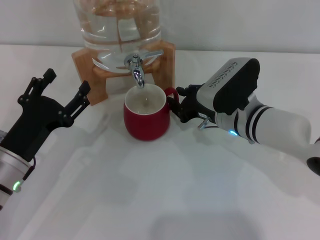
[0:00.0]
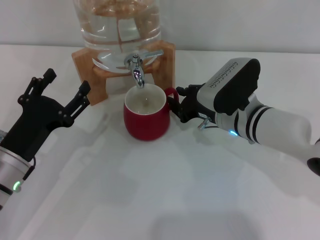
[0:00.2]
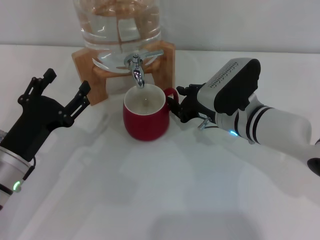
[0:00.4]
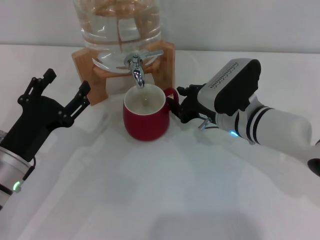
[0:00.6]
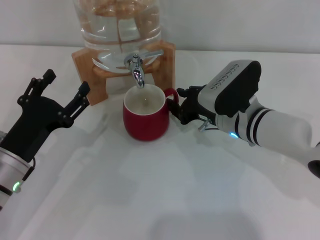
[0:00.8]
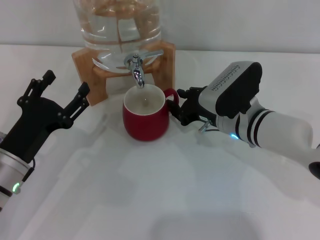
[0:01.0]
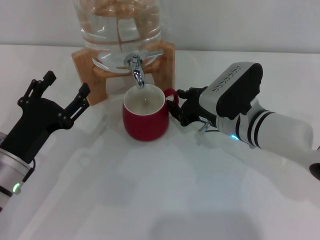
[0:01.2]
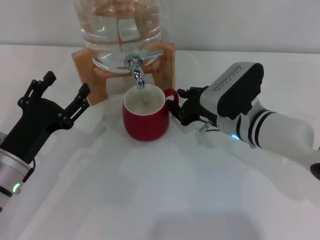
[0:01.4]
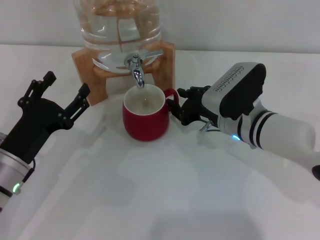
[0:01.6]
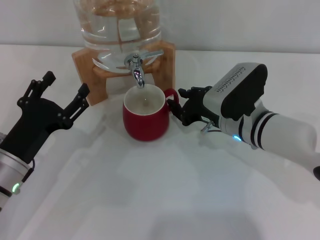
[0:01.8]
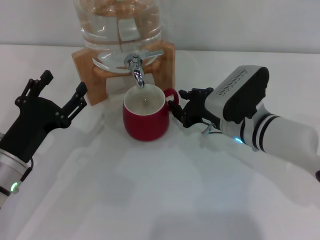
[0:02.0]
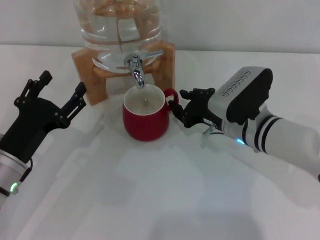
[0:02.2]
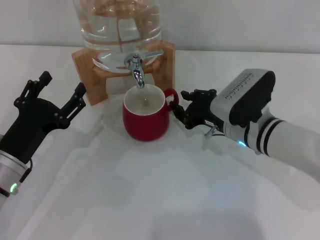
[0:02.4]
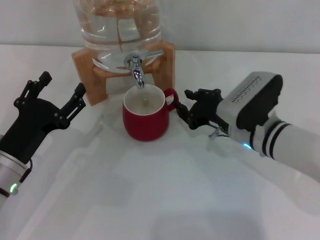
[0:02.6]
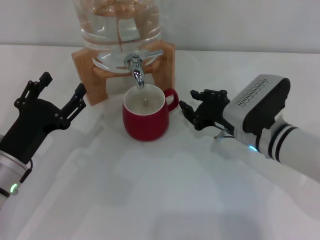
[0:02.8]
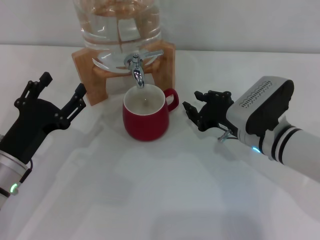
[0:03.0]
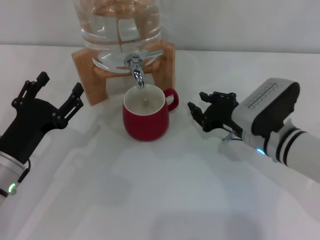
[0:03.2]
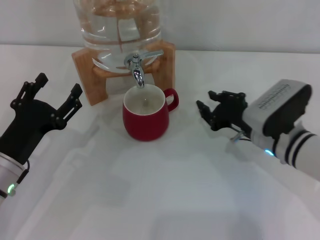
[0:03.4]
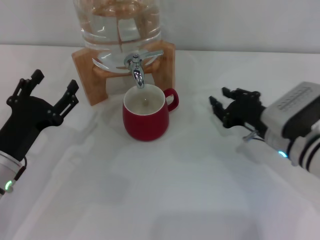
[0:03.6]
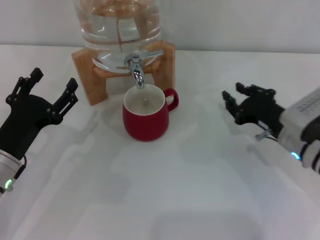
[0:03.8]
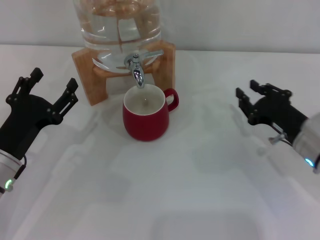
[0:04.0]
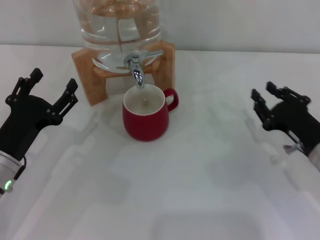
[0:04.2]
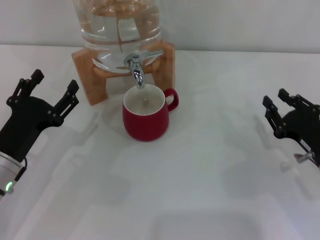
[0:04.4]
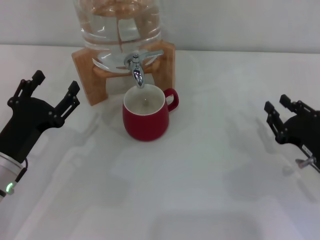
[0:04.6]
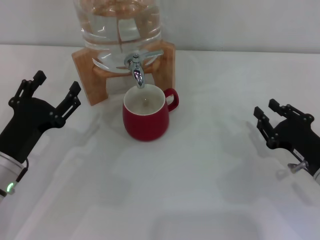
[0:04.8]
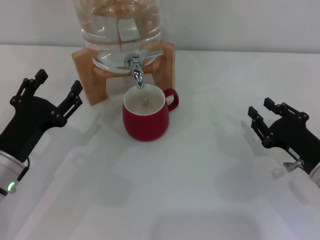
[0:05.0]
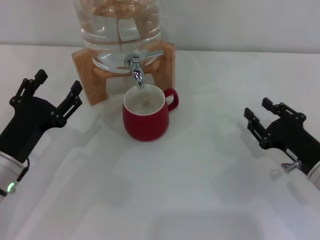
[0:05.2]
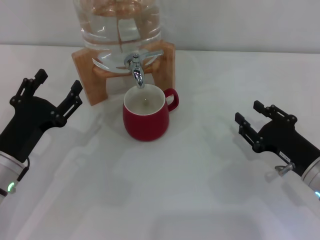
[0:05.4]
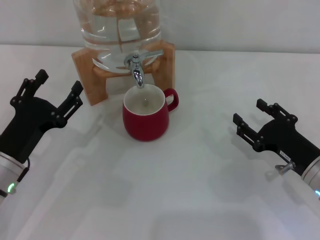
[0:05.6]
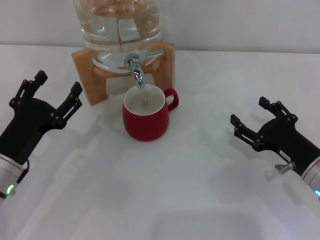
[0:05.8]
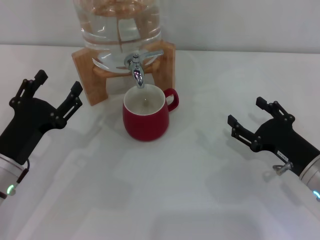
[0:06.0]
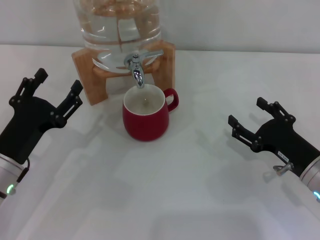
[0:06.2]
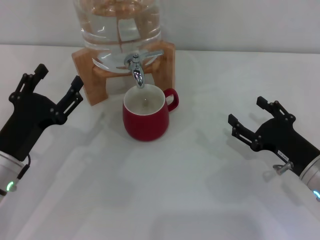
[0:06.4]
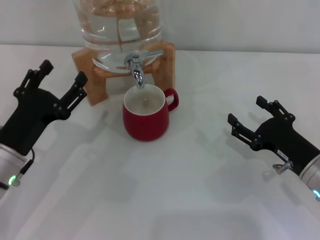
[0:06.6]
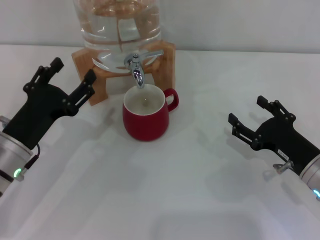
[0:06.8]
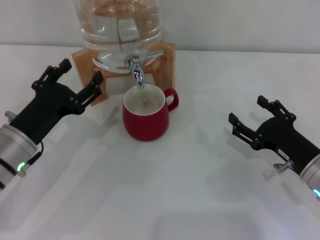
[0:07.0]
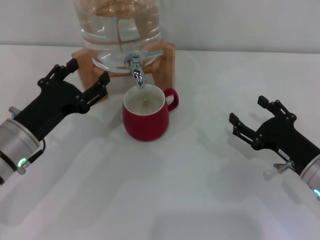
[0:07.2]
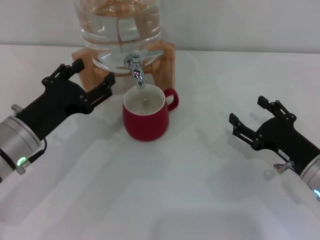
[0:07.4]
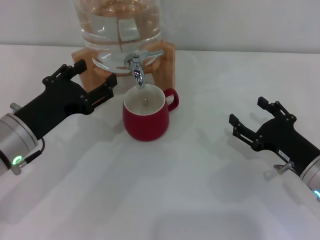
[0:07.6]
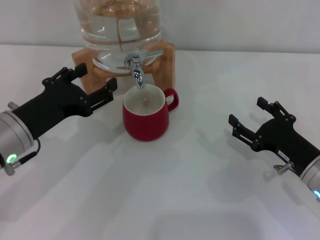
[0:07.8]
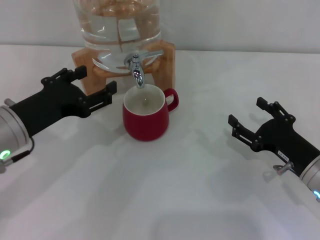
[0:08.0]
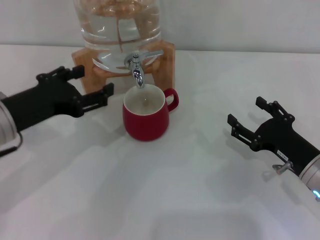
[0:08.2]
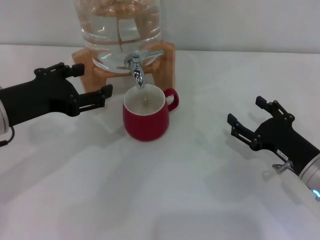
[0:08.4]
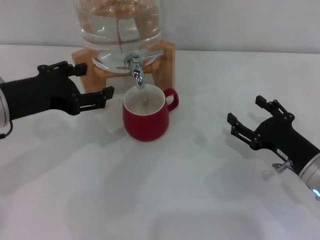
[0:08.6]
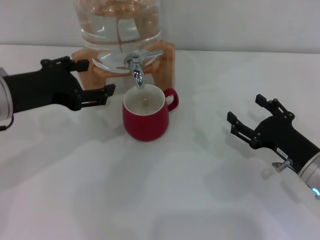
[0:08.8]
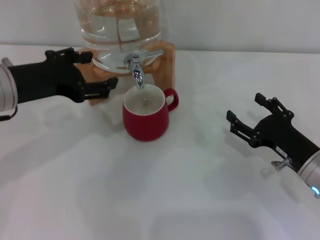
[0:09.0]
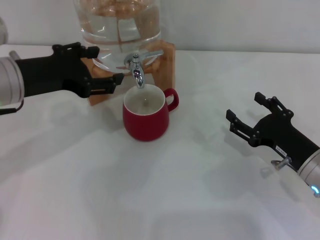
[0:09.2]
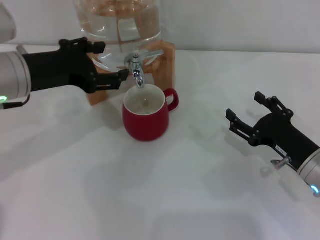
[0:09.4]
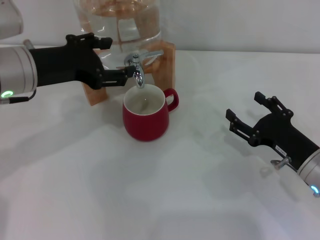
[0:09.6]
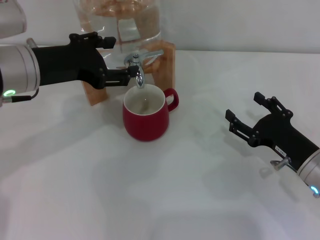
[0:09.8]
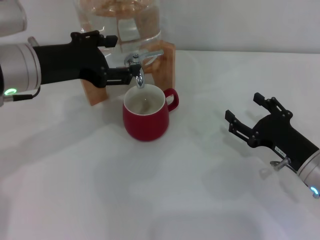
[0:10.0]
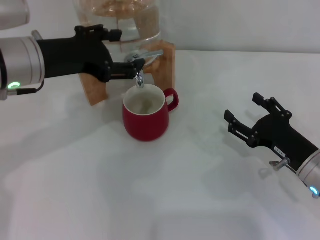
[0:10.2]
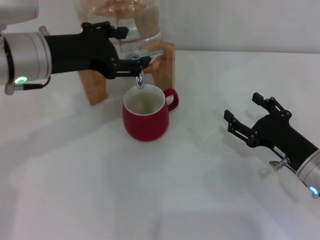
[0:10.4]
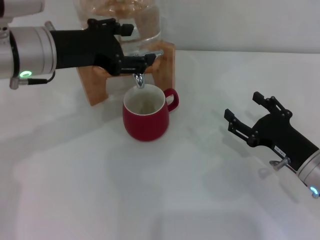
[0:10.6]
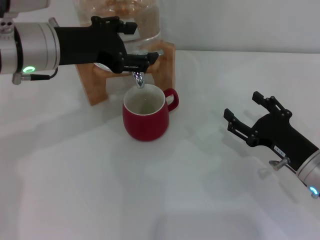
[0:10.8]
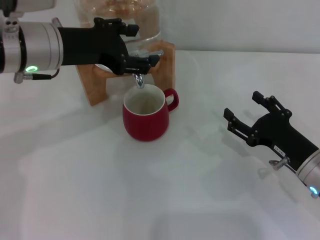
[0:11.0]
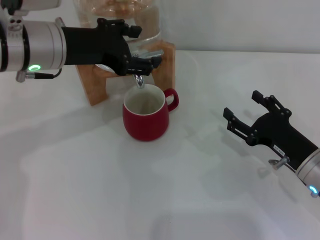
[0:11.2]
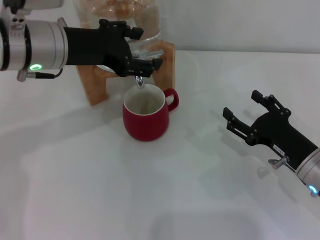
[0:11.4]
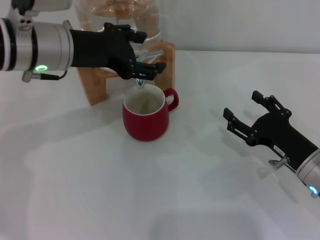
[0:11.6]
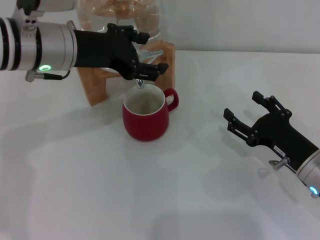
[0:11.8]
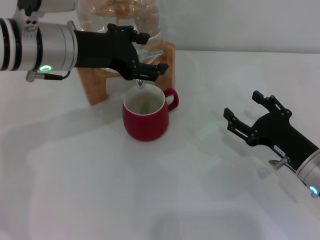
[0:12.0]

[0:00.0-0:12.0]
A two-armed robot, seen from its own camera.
Task of the whole recording: the right gripper pick up the red cup and place it horizontally under the faucet, the left gripper turn on the faucet to fill the cup, and then turn off the faucet.
Step, 0:00.0 to 0:03.0: Move the cup beneath the water dispenser nozzle with the right gripper.
0:00.0 to 0:01.6: The two grippers keep their place.
0:01.6 to 0:03.0: The grippers make only small movements.
0:03.0 to 0:04.4: The right gripper goes approximately 15 cm to the right and backward.
0:04.4 to 0:06.0: The right gripper opens its fingers.
0:06.0 to 0:07.6: The left gripper moves upward, approximately 5 cm.
0:07.6 to 0:09.0: The left gripper heads upward, covering roughly 10 cm.
0:09.0 to 0:10.4: The left gripper ends up about 5 cm from where it was.
0:10.4 to 0:12.0: The grippers stay close to where they were, moving slightly.

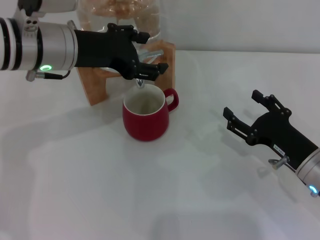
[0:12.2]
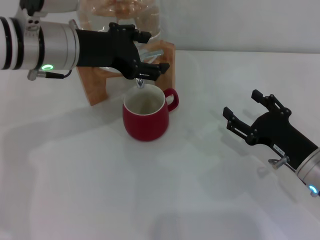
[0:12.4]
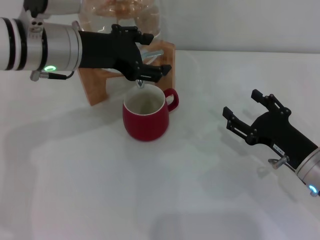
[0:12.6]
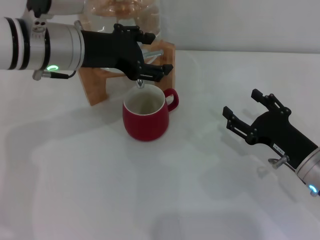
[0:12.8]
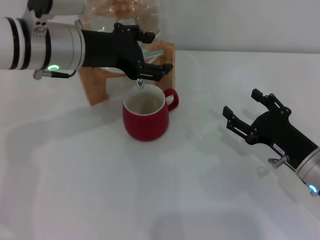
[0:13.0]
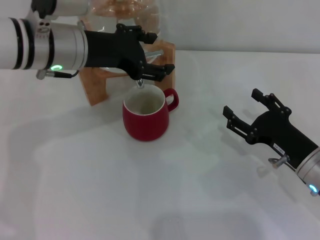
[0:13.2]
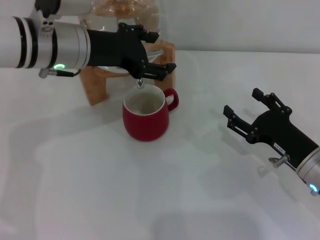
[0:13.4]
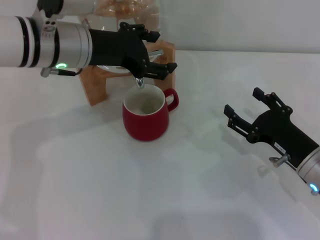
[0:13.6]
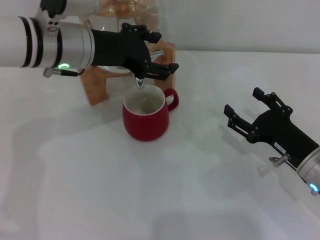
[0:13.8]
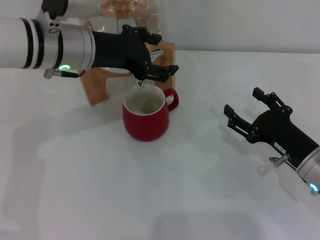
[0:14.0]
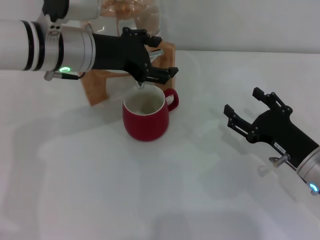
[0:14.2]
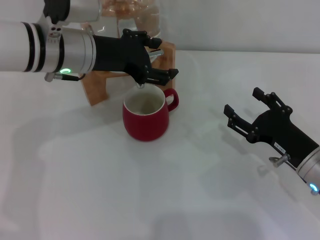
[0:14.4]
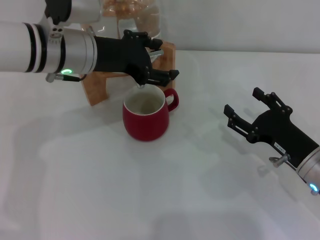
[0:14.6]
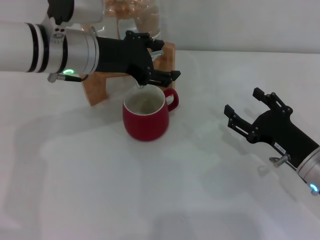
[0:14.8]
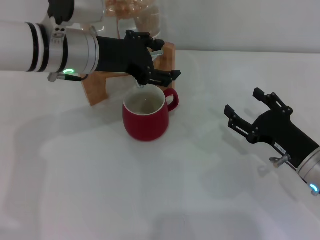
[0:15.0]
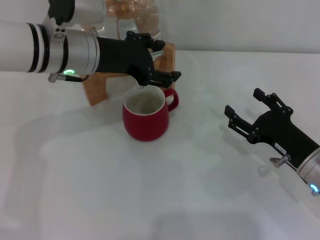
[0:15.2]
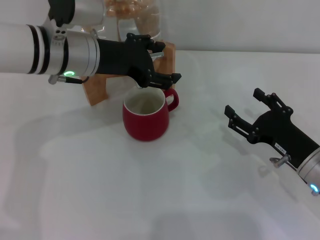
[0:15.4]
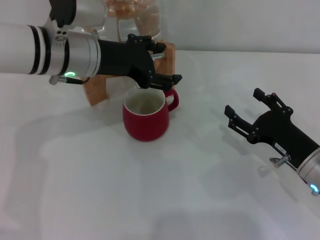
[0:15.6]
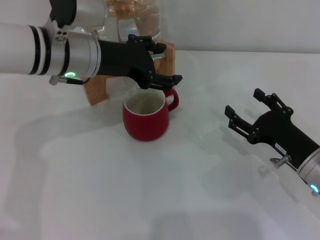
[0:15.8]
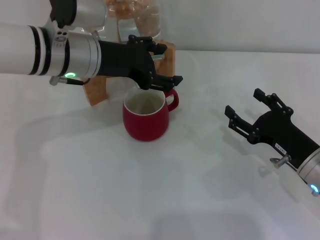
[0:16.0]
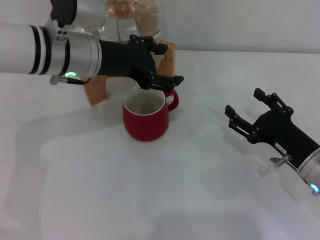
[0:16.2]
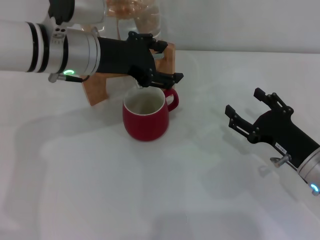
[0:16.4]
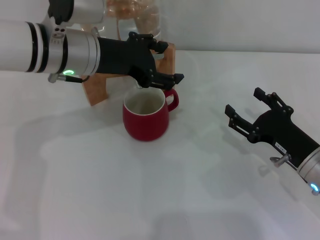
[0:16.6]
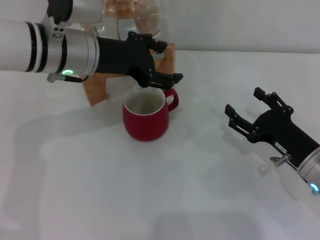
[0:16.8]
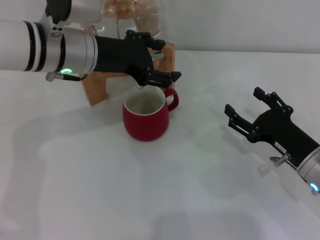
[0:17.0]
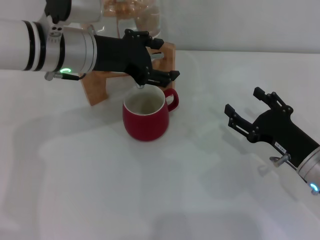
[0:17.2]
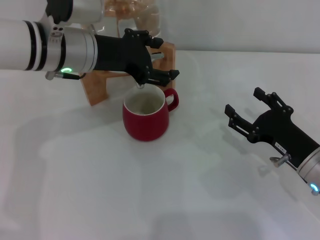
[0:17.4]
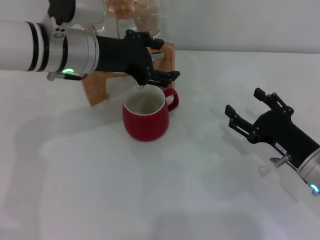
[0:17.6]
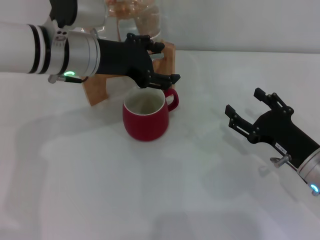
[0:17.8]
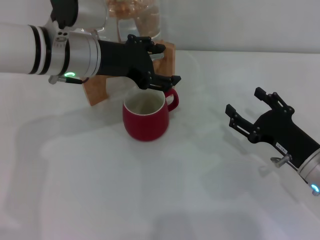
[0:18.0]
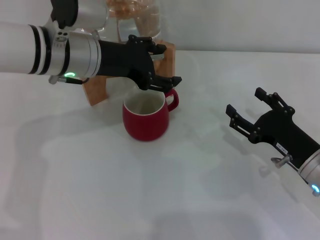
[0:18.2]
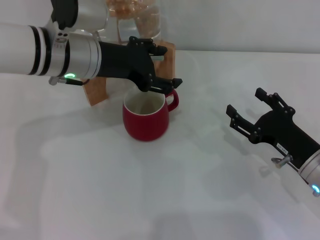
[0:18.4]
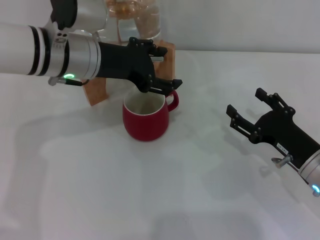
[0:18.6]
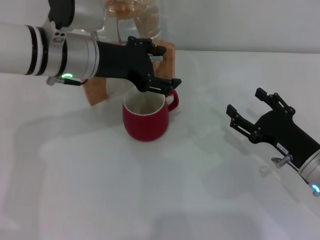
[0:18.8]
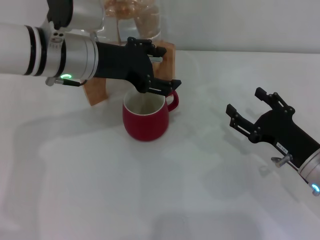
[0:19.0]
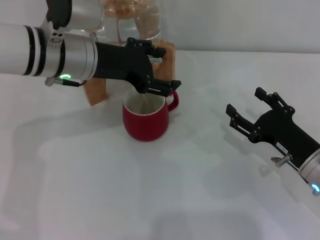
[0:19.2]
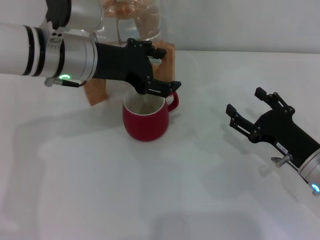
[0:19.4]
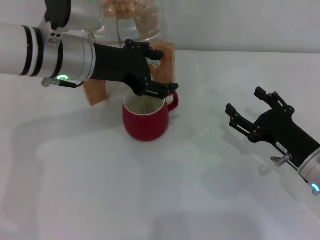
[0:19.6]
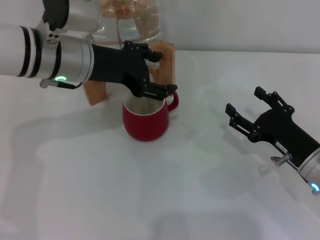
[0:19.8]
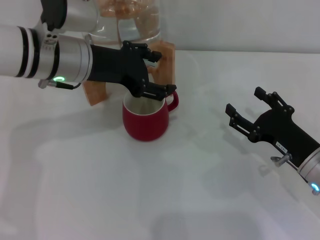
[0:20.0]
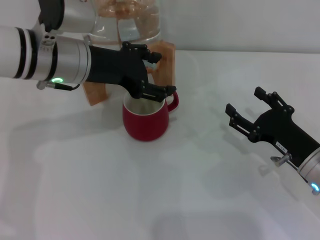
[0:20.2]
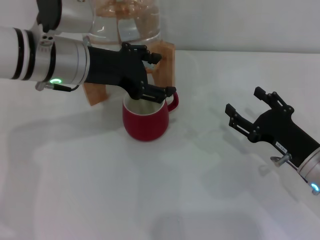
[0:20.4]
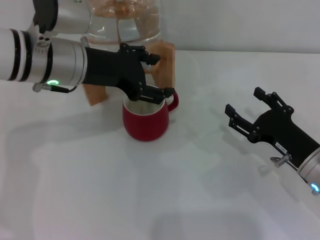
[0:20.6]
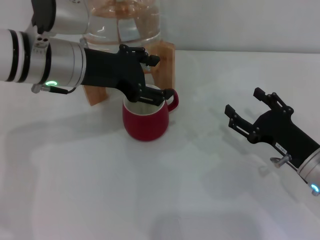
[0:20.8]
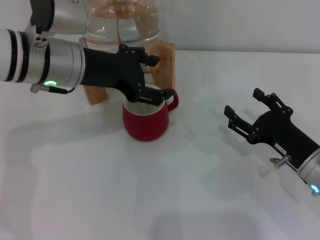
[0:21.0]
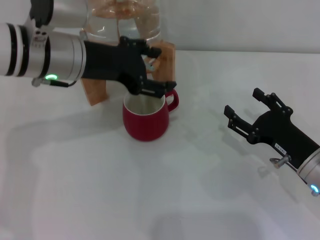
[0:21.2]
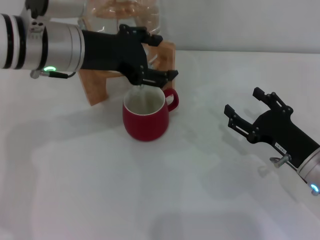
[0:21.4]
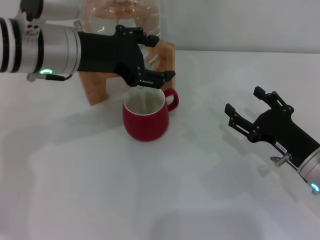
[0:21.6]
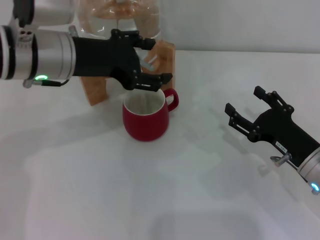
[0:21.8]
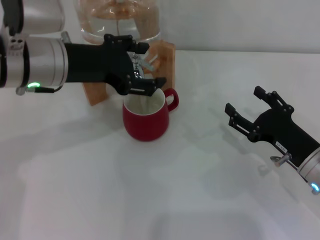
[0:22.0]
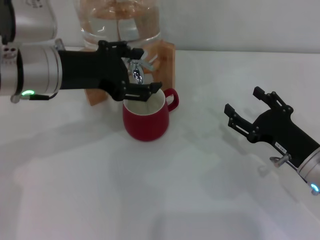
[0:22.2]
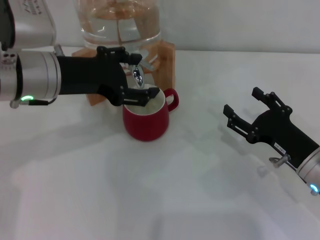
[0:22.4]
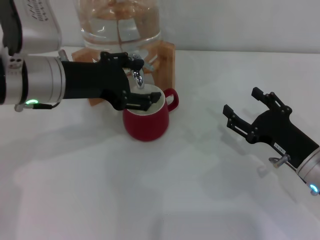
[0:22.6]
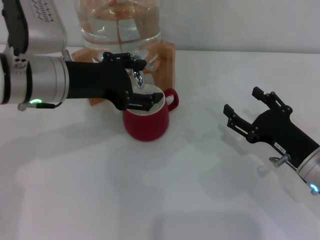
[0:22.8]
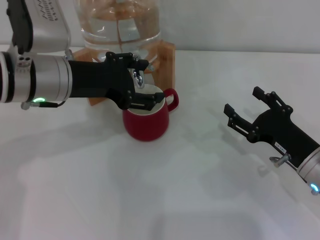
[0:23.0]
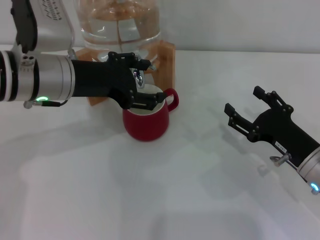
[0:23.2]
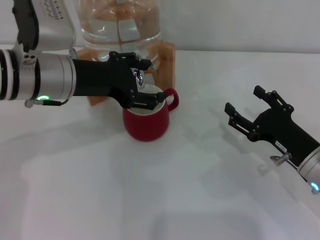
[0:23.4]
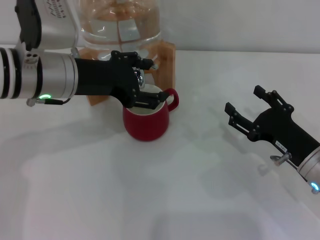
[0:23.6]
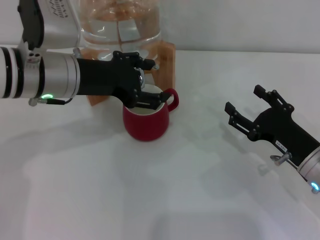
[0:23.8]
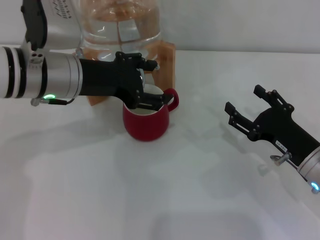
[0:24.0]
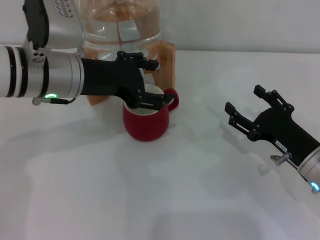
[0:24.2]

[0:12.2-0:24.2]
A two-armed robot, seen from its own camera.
Task of the whole recording: the right gripper pick up the red cup and place it horizontally under the faucet, the left gripper turn on the faucet to fill the cup, and then turn off the faucet.
Step, 0:12.2 to 0:21.4: Open the dispenser valve and fill the cup with water with the left gripper.
0:12.2 to 0:13.8: There are only small adjustments of the grippers.
0:13.8 to 0:18.2: Neither gripper changes place.
0:18.2 to 0:19.8: Both grippers stay about where they are.
0:19.8 to 0:24.2: There are only small adjustments of the grippers.
